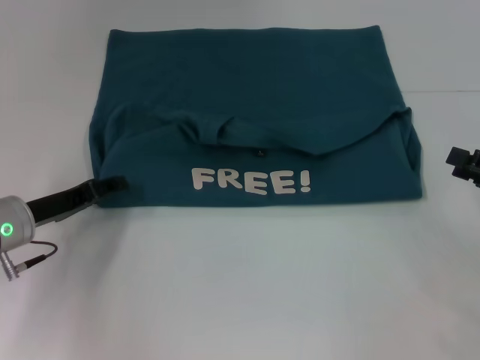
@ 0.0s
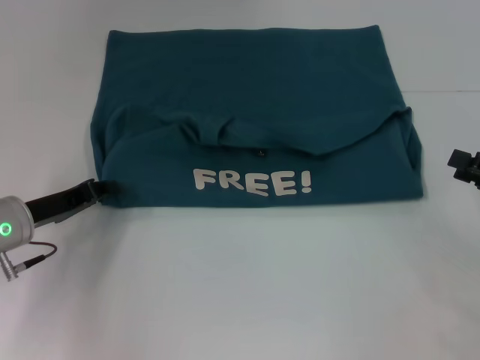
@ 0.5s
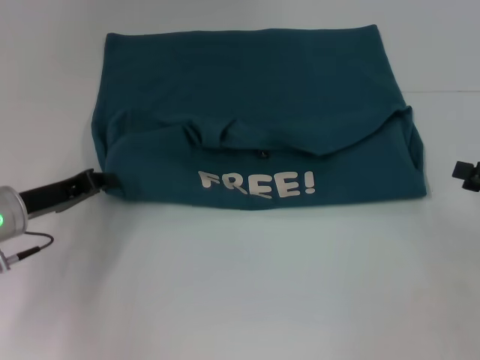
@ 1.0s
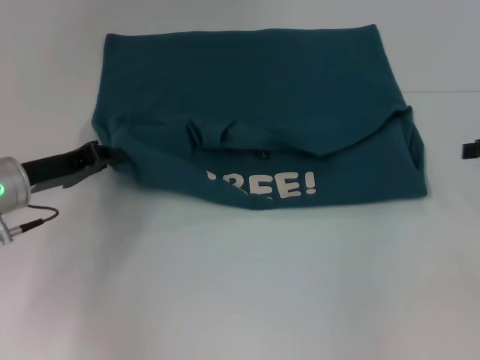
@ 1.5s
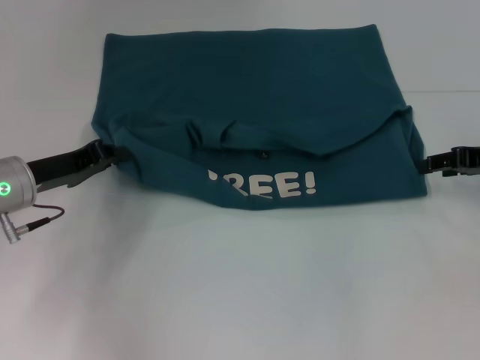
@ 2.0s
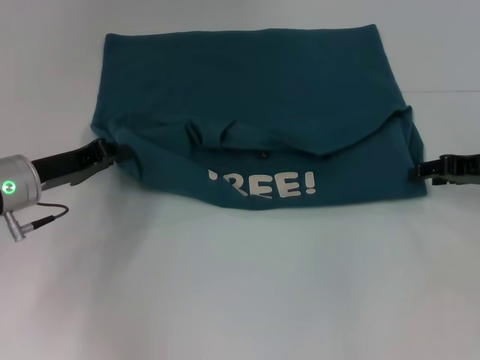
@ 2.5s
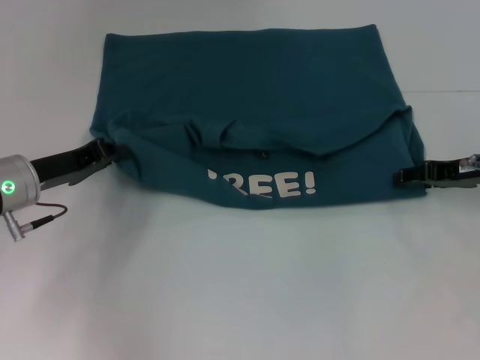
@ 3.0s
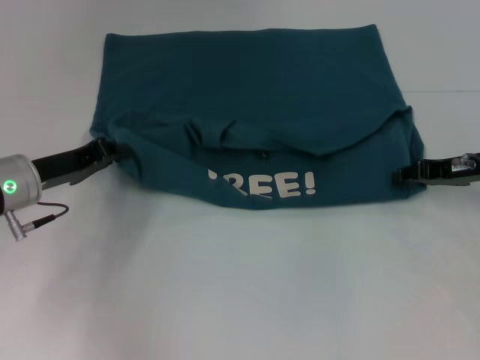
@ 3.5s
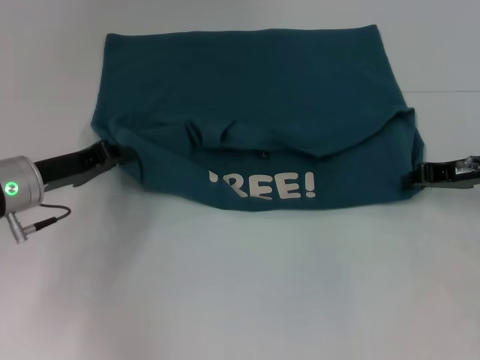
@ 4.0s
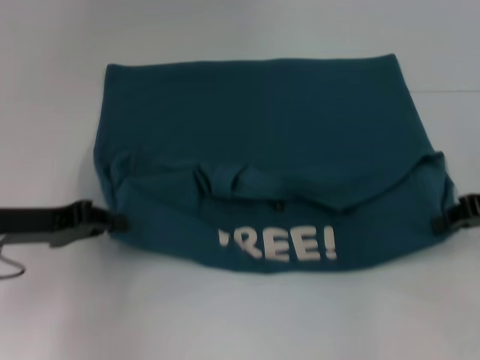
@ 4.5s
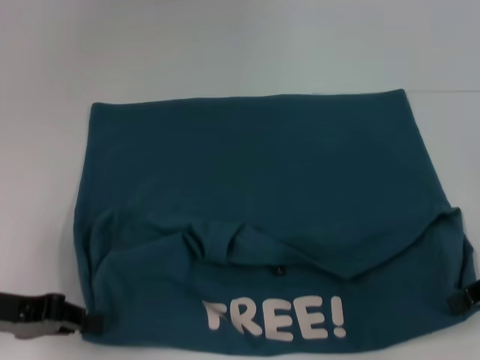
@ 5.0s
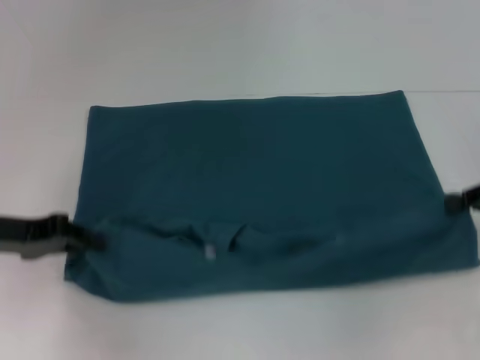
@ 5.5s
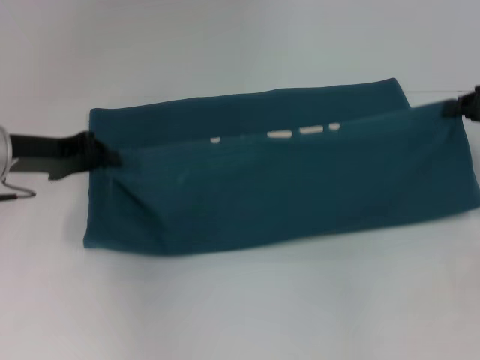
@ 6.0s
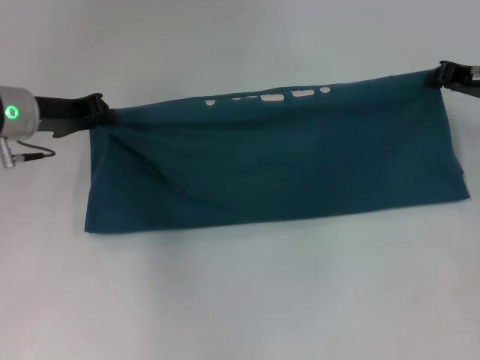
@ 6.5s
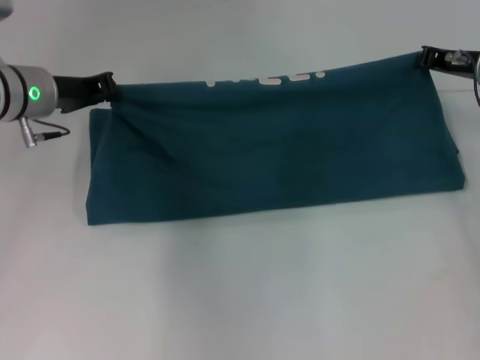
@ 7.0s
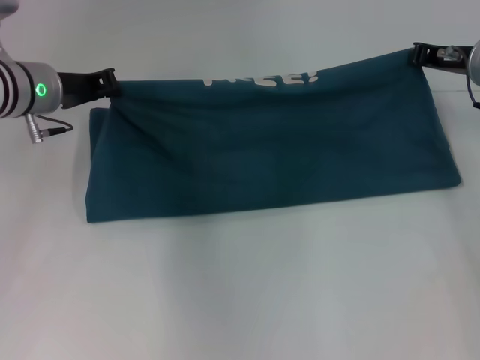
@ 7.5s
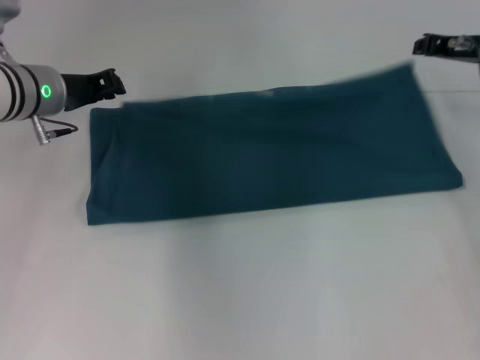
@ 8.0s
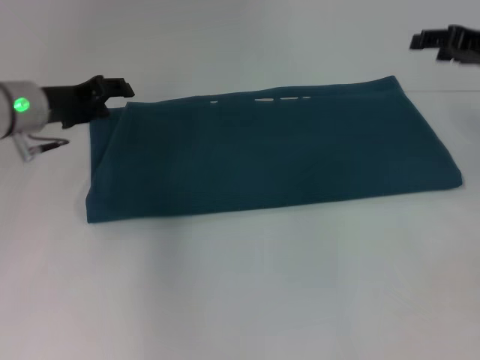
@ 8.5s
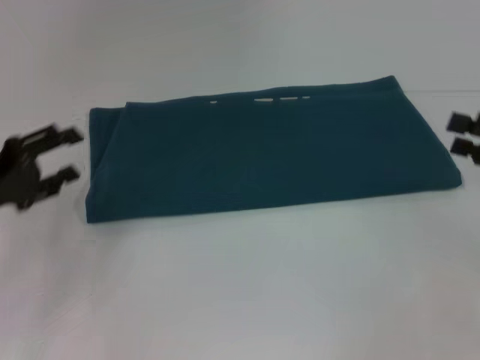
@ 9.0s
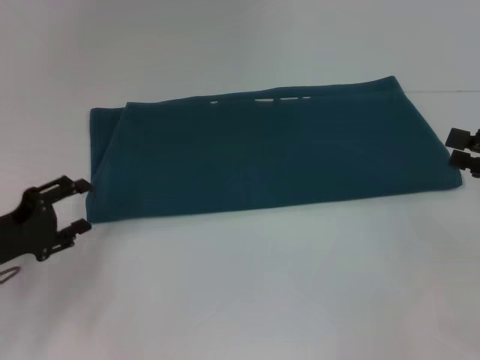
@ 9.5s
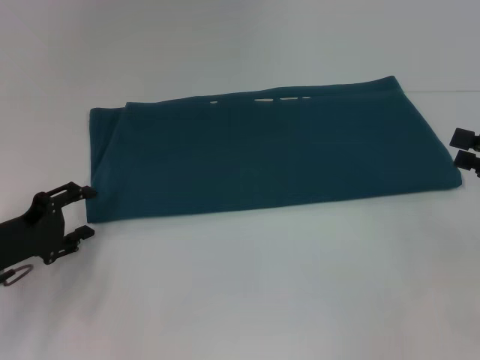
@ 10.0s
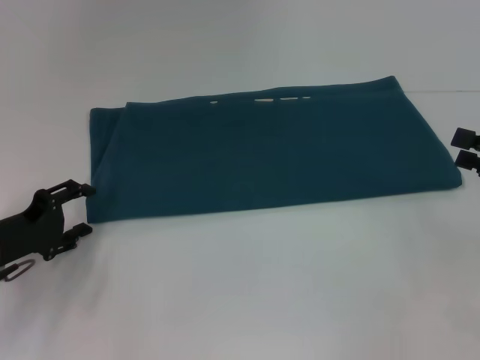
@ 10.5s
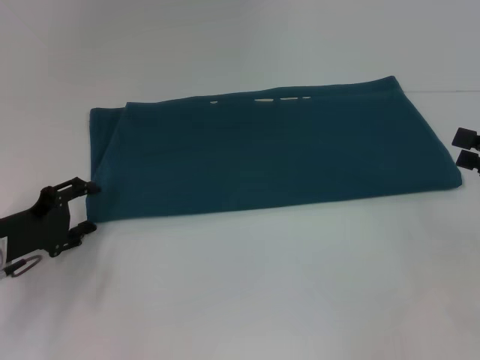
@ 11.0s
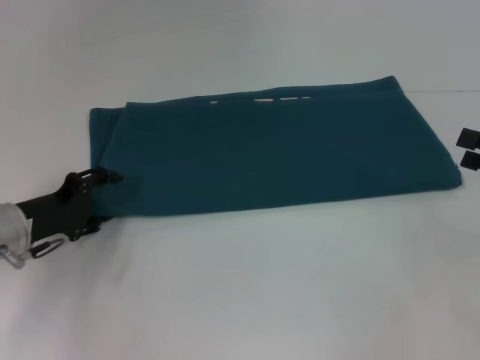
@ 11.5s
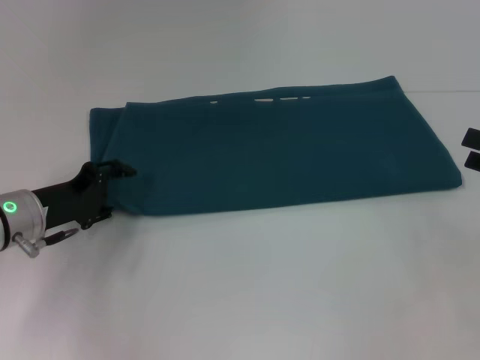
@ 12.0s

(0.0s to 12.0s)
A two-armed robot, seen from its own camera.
Step, 0.0s - 5.0s: Pull the clothes with your left hand.
Step, 0.0s - 5.0s: Pull the clothes with your right hand.
Step, 5.5s - 8.0s: Fold the clothes to the right.
0.0s - 2.0s: The right gripper travels forward by roughly 10 cm, while the left gripper closes up.
2.0s - 4.0s: The right gripper closes up.
4.0s - 6.0s: The grippers both shift upward by roughly 5 cm. The left gripper travels backward and back again, roughly 10 cm each way. The right gripper moves some 10 cm backward and comes back.
6.0s - 8.0s: The right gripper goes about 10 cm forward and to the left. Meanwhile the left gripper moves forward, approximately 5 cm.
8.0s - 10.0s: The right gripper moves backward and to the right, some 20 cm, and opens up. The left gripper heads backward, downward and to the left, covering approximately 20 cm, and opens.
10.0s - 12.0s: The left gripper travels forward by about 5 cm.

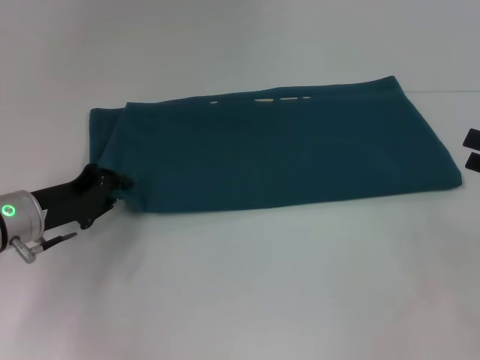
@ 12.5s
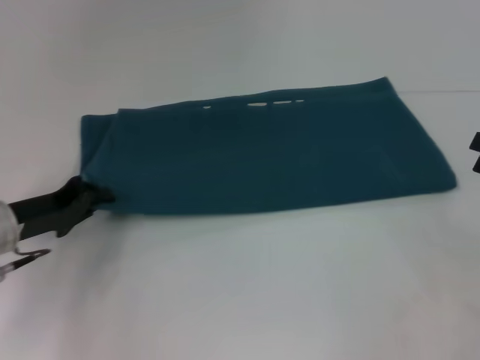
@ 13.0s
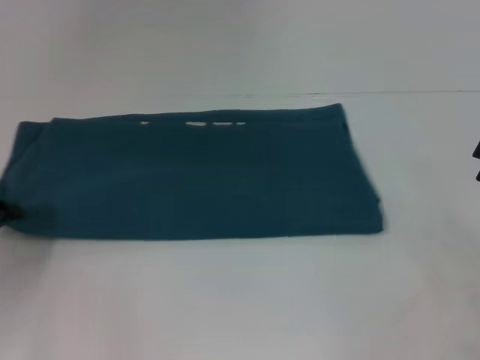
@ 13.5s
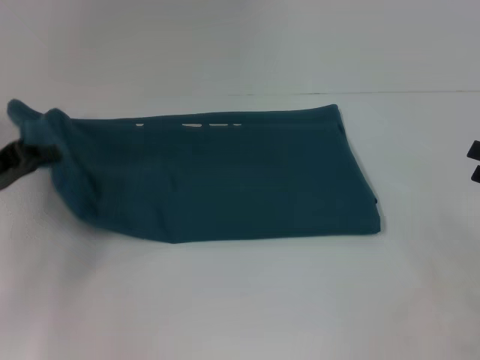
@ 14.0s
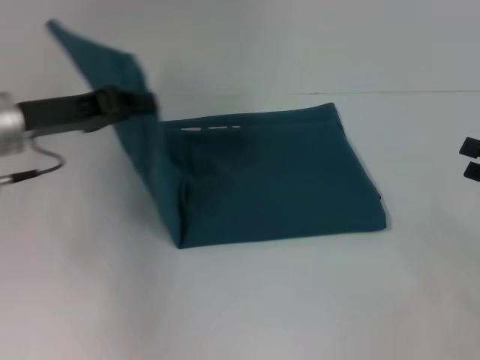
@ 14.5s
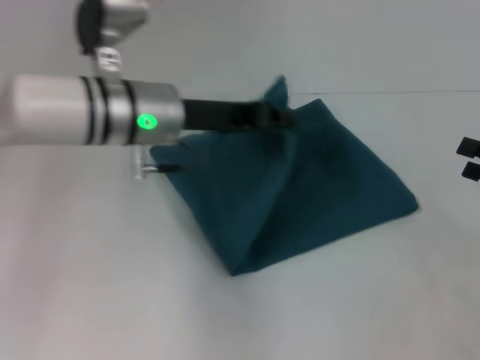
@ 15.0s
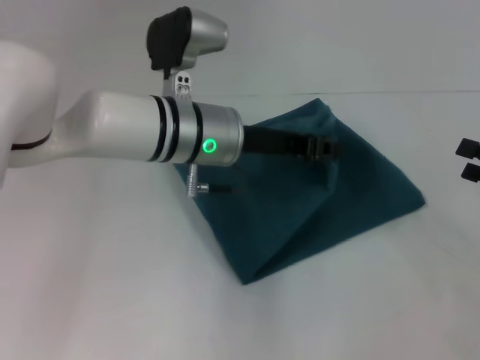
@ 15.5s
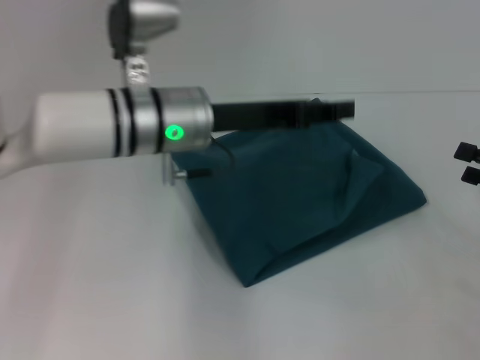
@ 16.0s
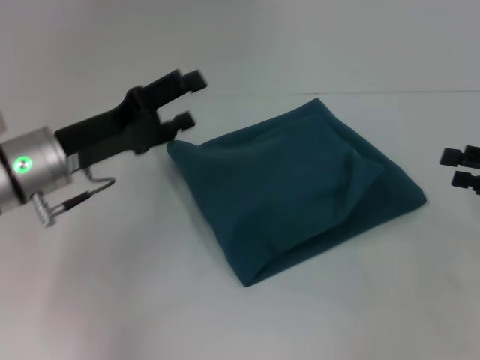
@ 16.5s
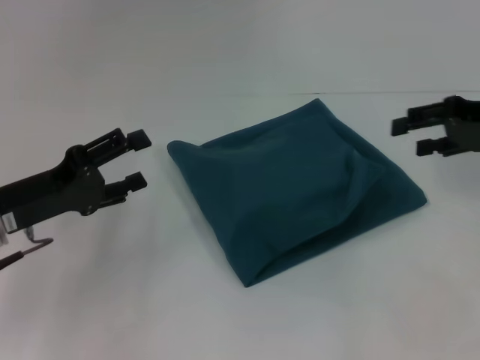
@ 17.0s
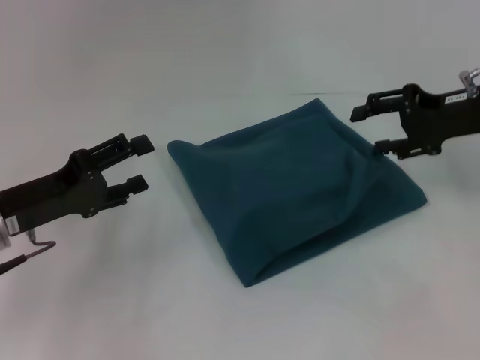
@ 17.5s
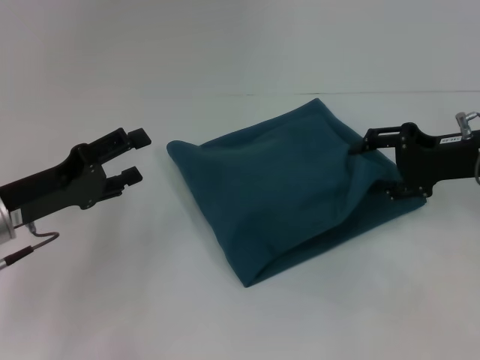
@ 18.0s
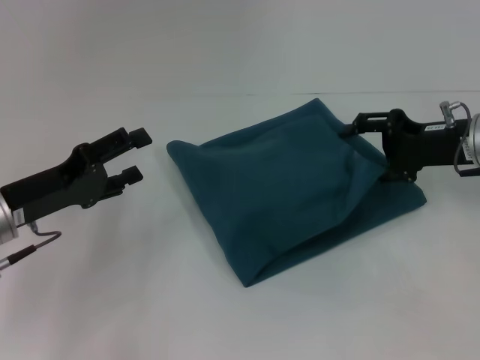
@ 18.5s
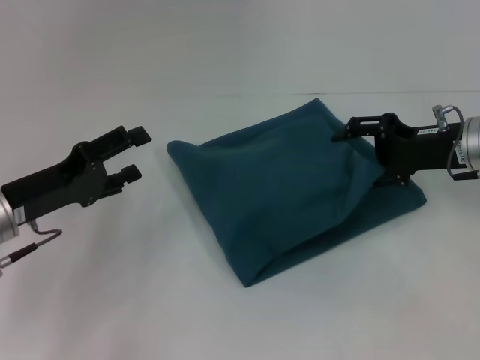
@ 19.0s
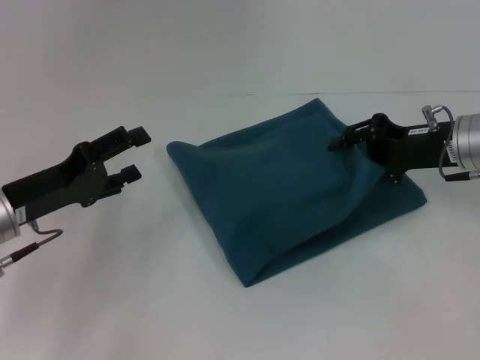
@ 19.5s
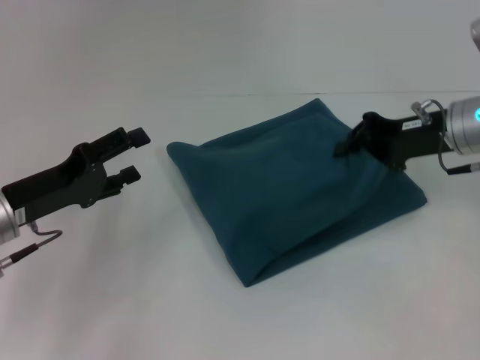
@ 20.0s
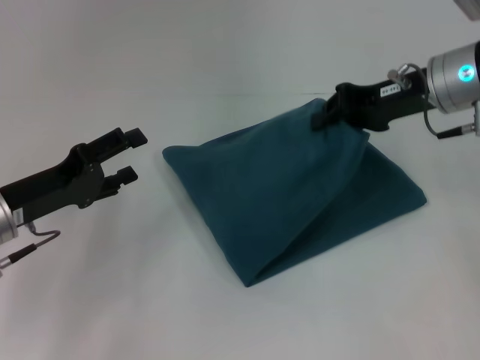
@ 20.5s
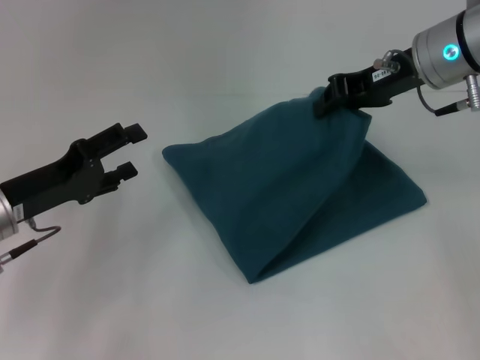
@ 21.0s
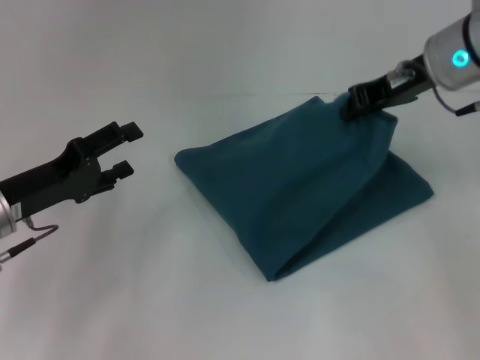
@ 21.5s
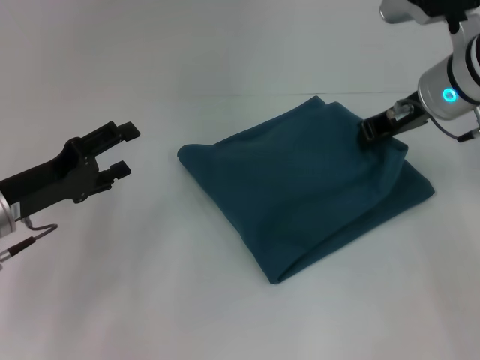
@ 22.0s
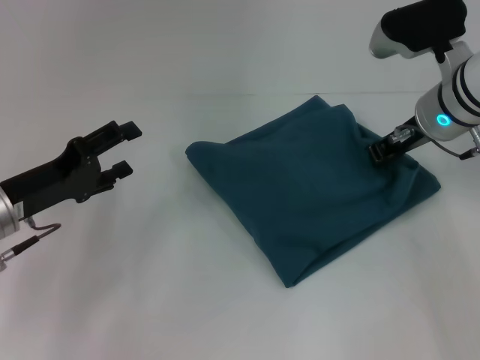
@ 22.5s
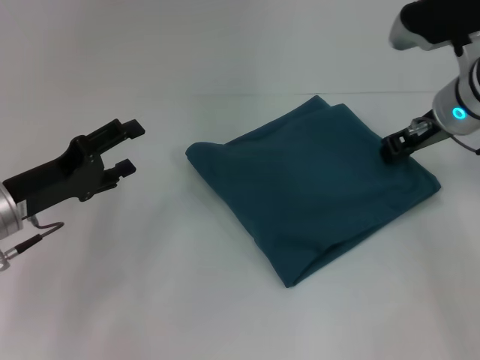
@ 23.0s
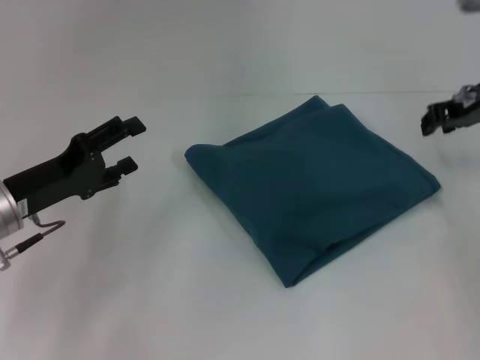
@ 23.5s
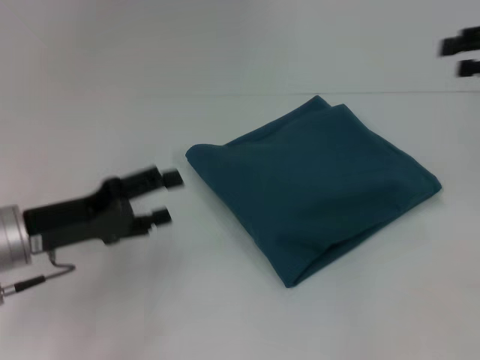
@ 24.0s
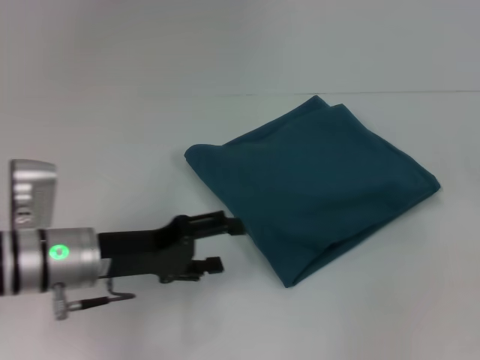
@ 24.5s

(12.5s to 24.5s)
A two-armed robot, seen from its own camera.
Step, 12.5s - 16.0s: Fold the clothes to the left.
12.5s - 14.5s: The left gripper moves upward, approximately 10 cm.
14.5s - 16.5s: The left gripper reaches approximately 20 cm to the right, then returns, and opens its fingers.
16.5s - 18.5s: The left gripper ends up some 5 cm from where it was. Meanwhile the right gripper shifts approximately 15 cm to the left and forward.
18.5s - 20.5s: The right gripper shifts about 10 cm upward and to the left, and closes its fingers.
22.5s - 24.5s: The right gripper moves to the right, some 25 cm, and opens its fingers, while the left gripper moves to the right, roughly 10 cm.

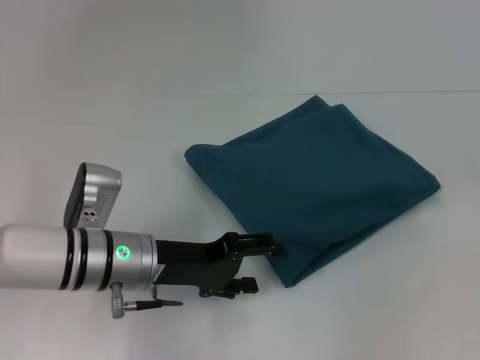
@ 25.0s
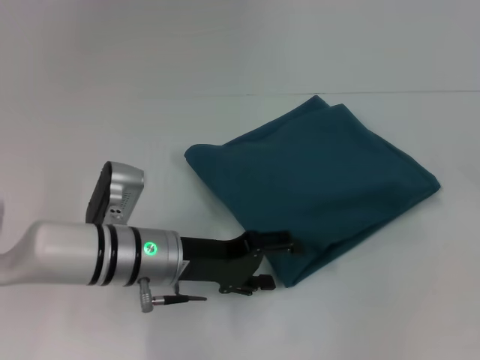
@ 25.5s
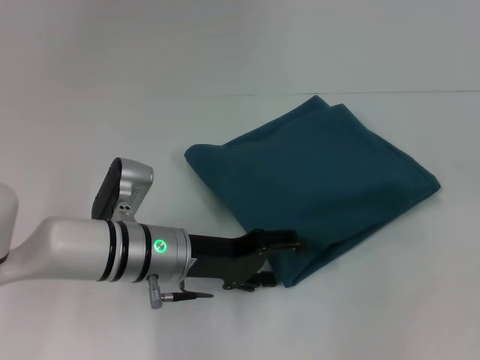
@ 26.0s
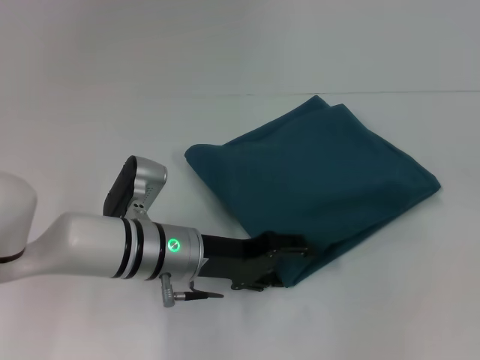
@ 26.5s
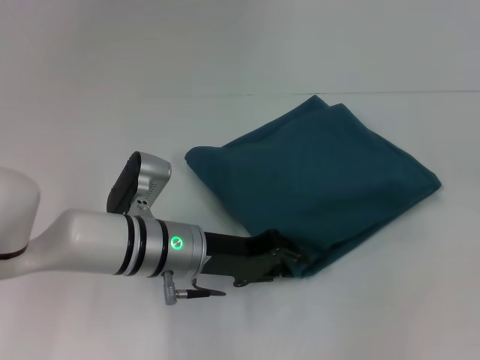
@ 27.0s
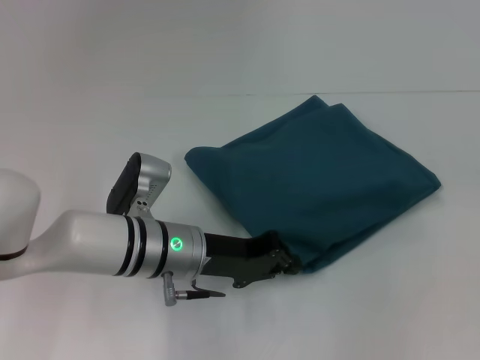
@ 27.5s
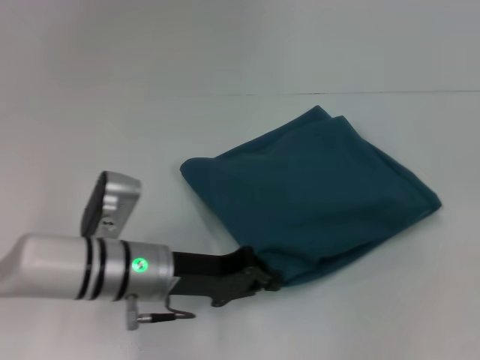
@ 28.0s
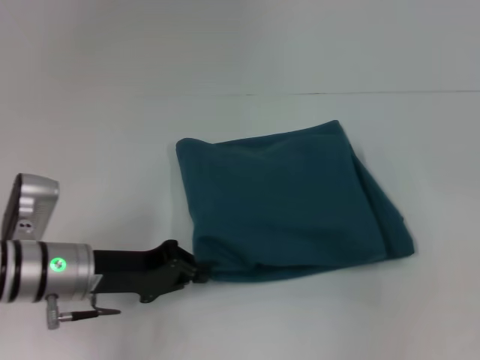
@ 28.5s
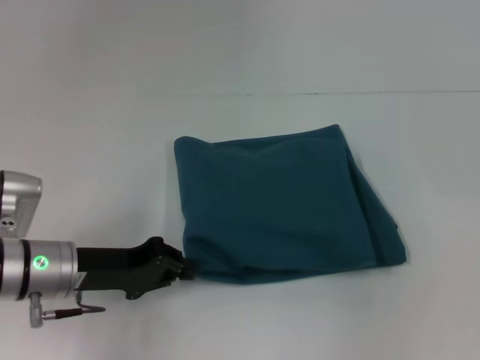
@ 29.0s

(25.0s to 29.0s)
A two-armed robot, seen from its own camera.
25.0s - 27.0s: The left gripper ends up approximately 5 cm from where it was.
27.0s - 29.0s: The left gripper moves to the left, some 10 cm, and closes its fingers.
